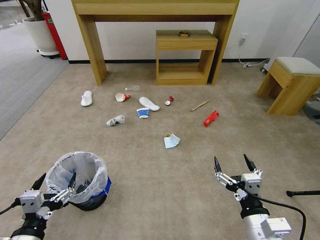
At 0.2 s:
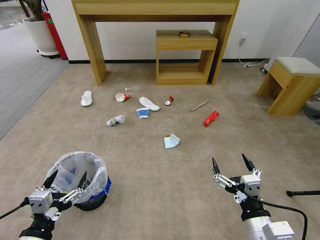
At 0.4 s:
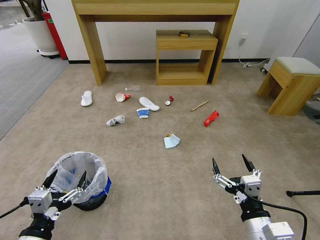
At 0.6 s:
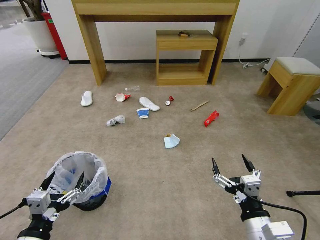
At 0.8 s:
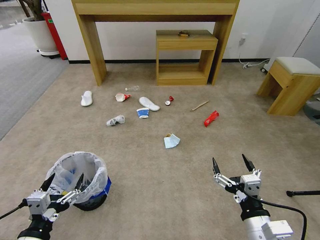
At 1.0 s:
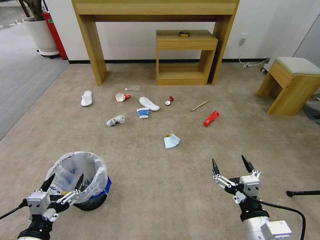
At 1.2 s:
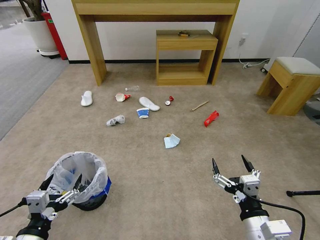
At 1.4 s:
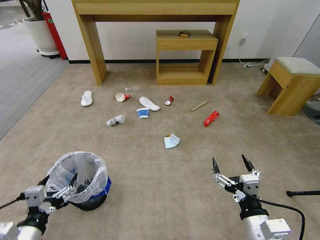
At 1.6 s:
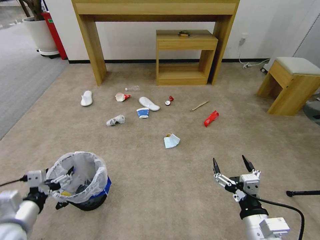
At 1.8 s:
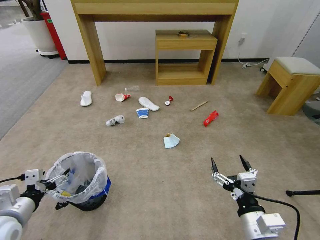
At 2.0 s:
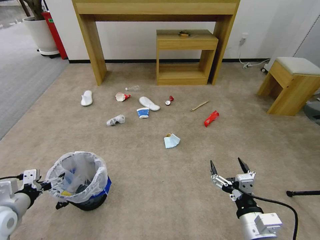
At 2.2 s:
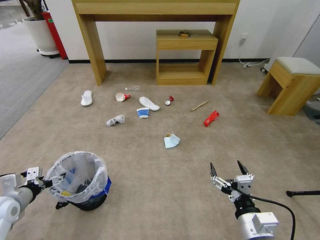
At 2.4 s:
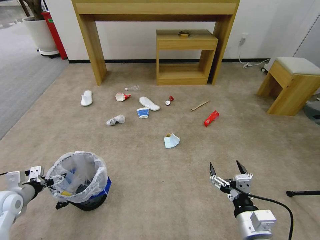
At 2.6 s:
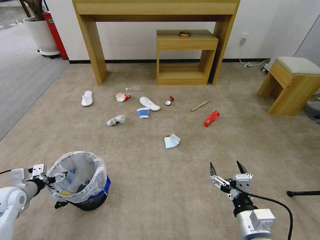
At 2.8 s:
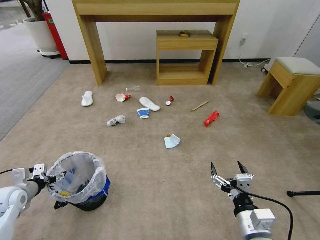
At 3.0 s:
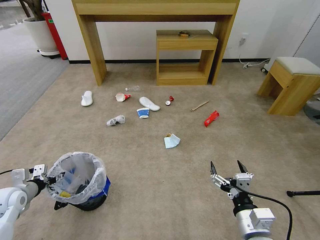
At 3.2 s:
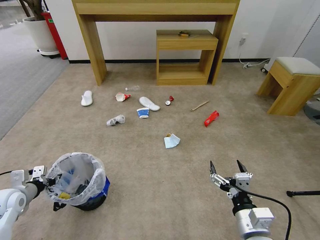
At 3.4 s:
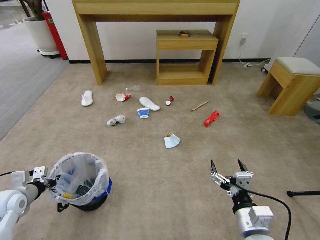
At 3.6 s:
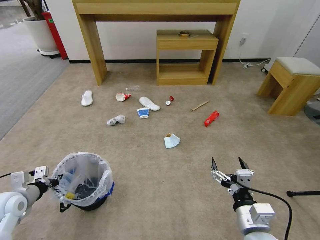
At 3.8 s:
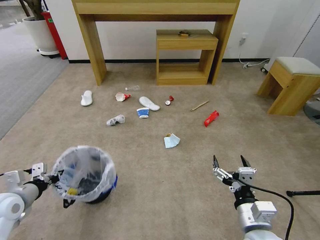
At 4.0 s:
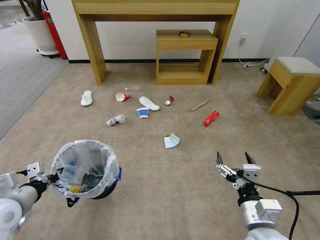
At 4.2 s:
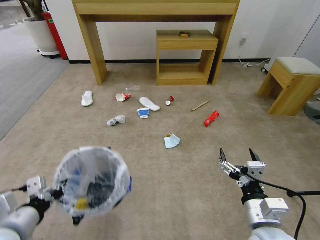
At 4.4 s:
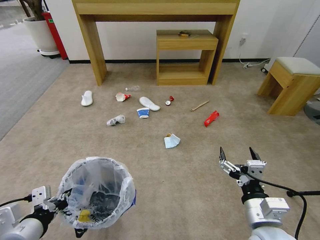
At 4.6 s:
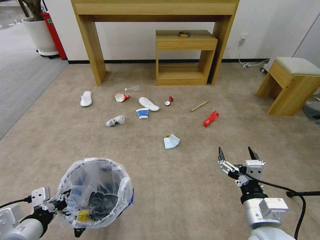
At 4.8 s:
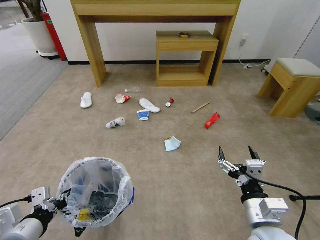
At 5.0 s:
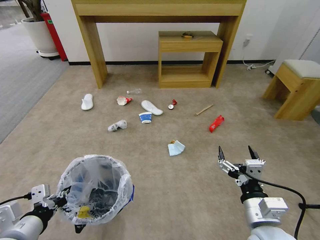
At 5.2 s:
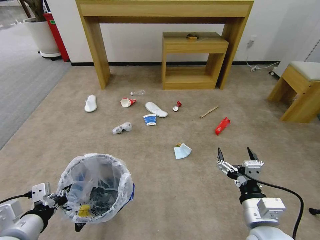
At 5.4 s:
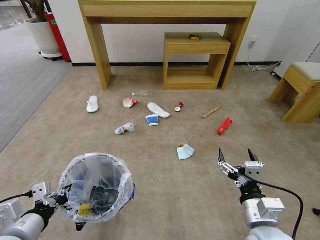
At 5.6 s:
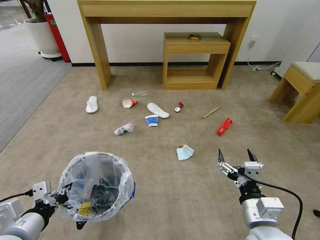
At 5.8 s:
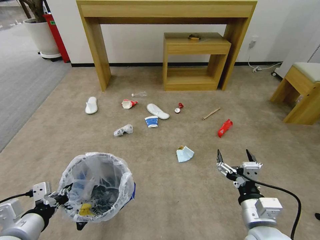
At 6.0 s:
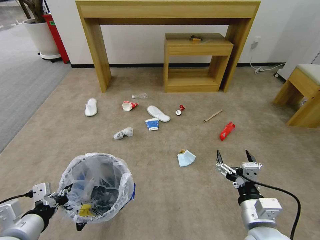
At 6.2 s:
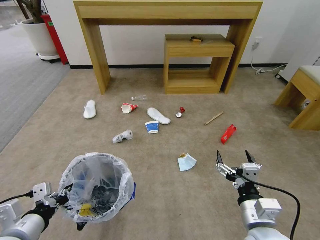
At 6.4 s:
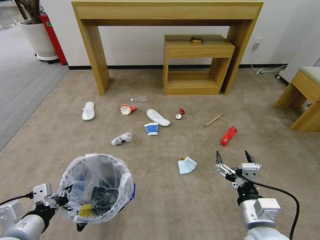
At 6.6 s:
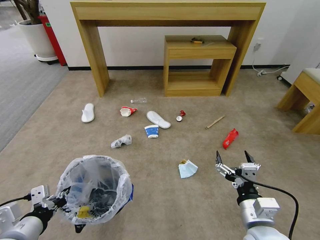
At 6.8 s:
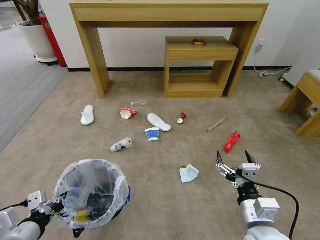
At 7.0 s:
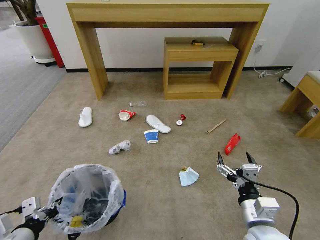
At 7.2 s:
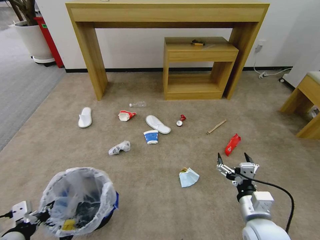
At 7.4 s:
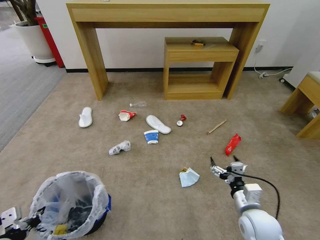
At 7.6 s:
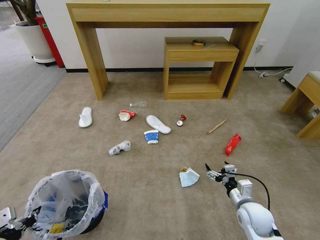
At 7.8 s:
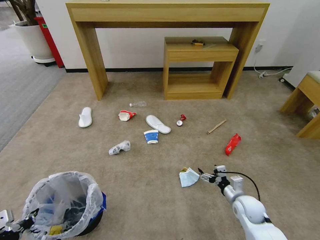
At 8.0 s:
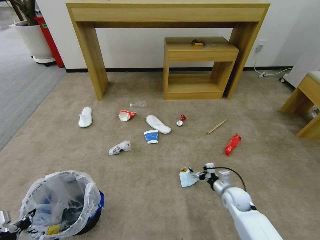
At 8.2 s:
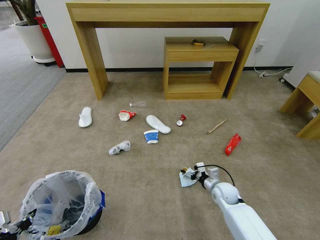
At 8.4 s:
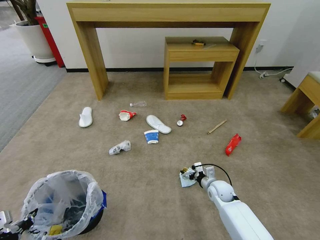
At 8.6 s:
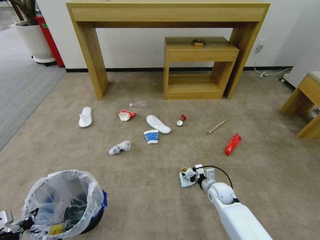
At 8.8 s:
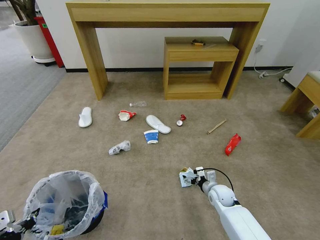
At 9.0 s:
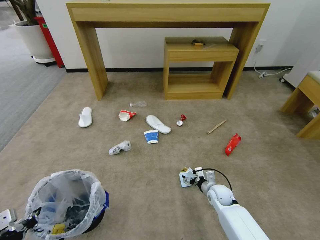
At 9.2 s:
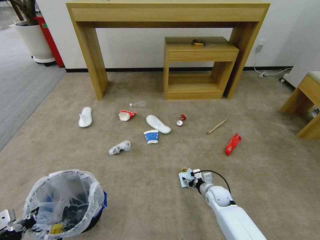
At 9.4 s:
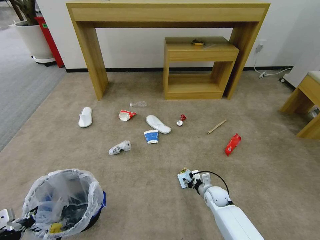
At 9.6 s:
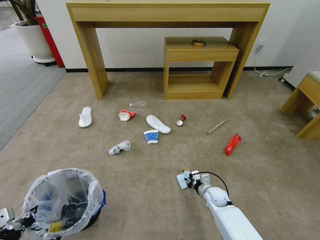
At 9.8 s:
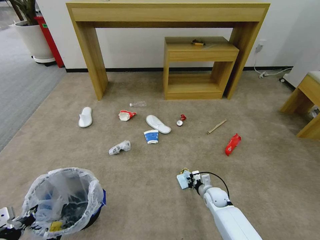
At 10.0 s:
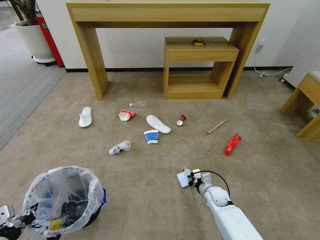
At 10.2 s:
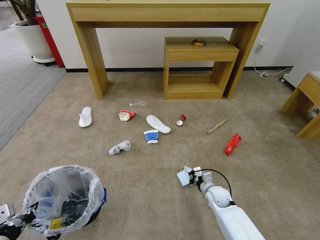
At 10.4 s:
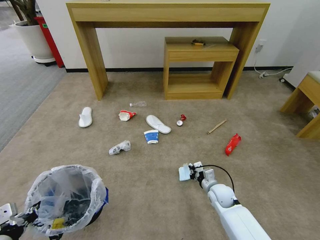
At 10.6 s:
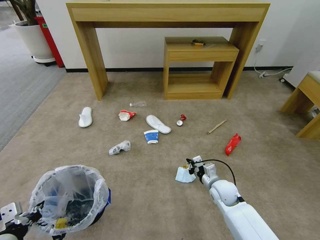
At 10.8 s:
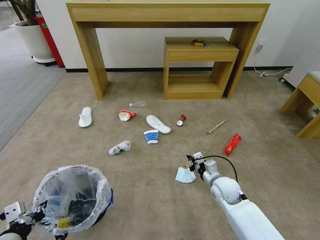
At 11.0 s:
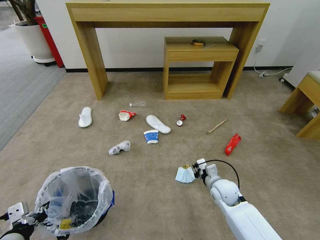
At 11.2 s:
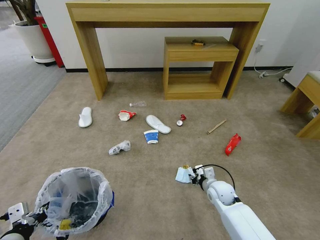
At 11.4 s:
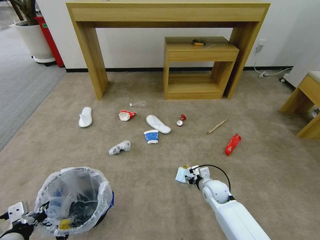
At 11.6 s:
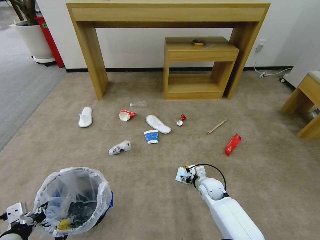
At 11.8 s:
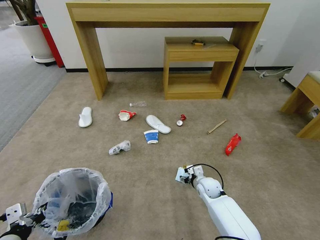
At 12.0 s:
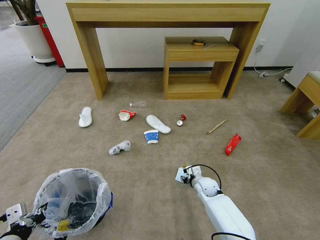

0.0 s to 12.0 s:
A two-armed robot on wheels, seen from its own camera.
Task of the whole recording: Pick up the trash bin and place the garbage on the floor into it.
1.6 to 3.0 s: The left gripper goes some 20 cm forward, to the left and downward, and closes.
3.0 to 4.4 s: The left gripper is displaced backward, to the right and upward by about 25 cm, and closes up.
6.0 to 7.6 s: The left gripper heads to the left, covering approximately 10 cm, while the right gripper goes about 15 cm downward, forward and to the right.
7.6 to 9.0 s: The right gripper is displaced forward and downward by approximately 15 cm.
9.0 to 10.4 s: The right gripper closes up.
10.4 to 12.0 s: The right gripper ends up about 5 cm from where it was, and opens.

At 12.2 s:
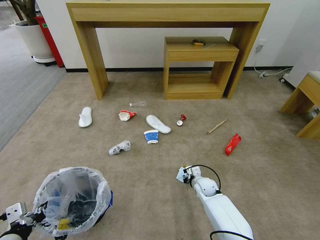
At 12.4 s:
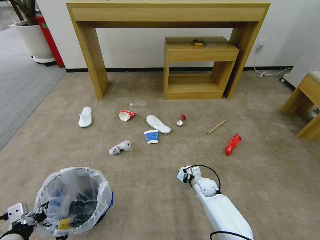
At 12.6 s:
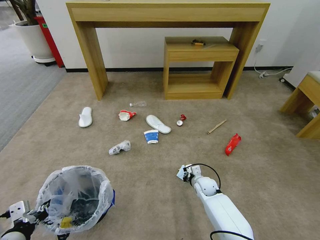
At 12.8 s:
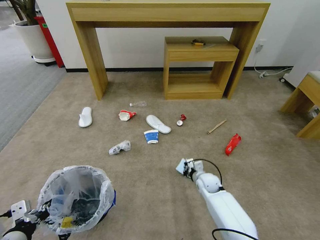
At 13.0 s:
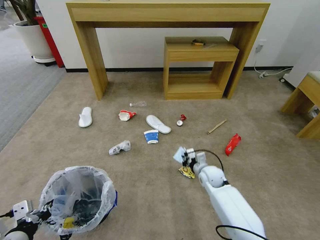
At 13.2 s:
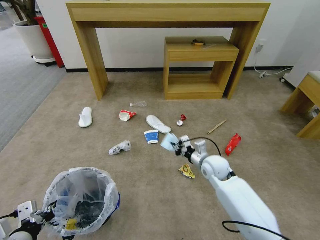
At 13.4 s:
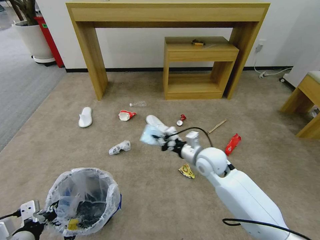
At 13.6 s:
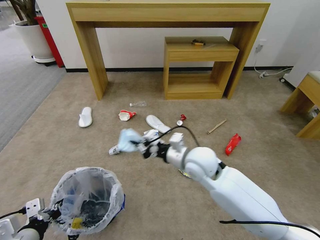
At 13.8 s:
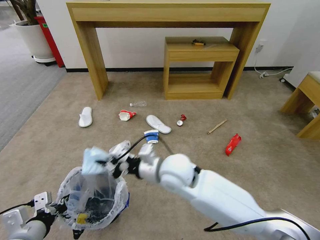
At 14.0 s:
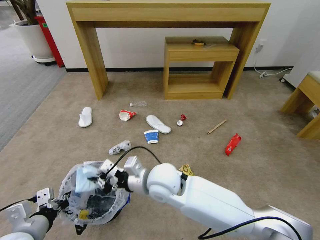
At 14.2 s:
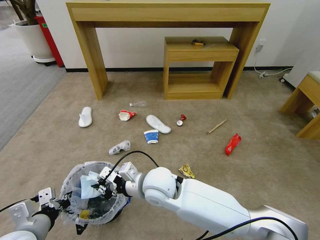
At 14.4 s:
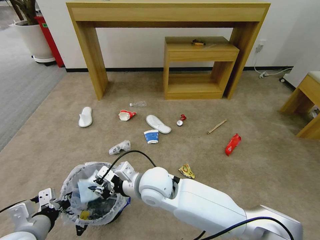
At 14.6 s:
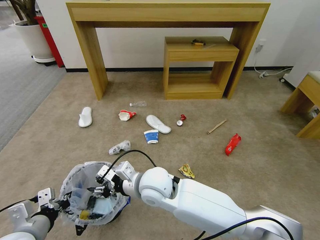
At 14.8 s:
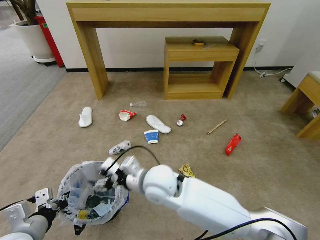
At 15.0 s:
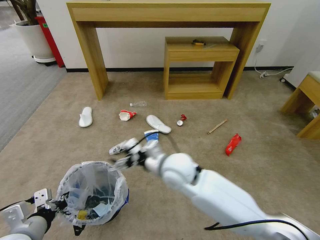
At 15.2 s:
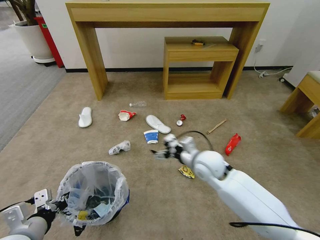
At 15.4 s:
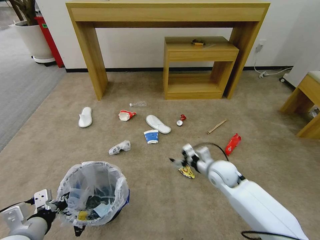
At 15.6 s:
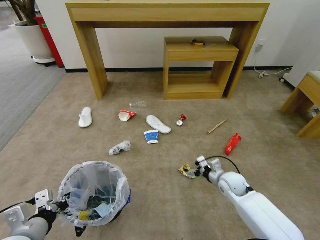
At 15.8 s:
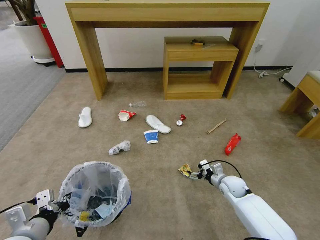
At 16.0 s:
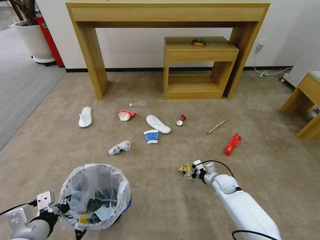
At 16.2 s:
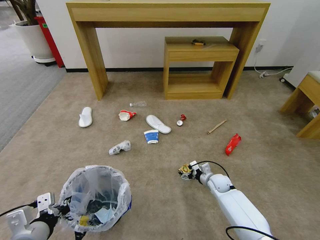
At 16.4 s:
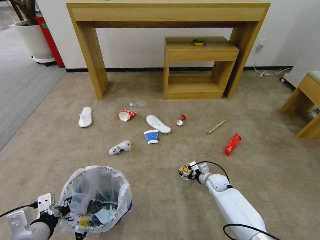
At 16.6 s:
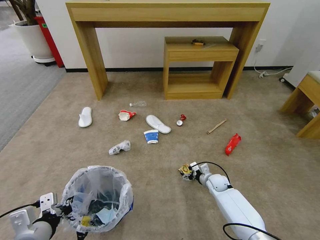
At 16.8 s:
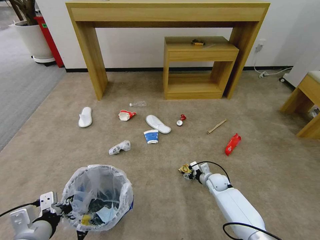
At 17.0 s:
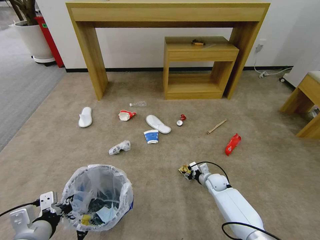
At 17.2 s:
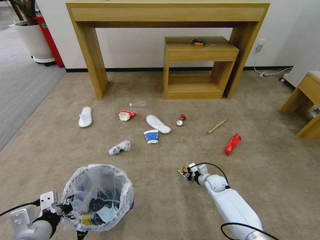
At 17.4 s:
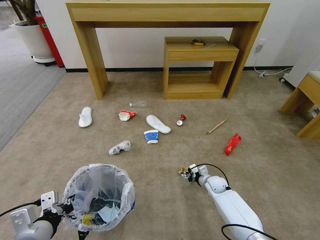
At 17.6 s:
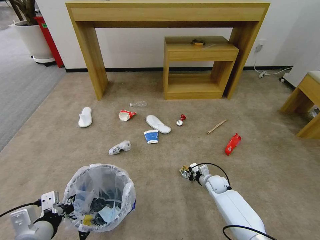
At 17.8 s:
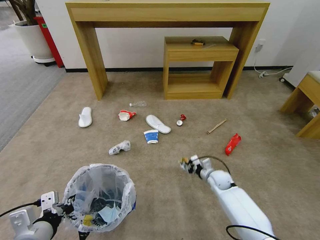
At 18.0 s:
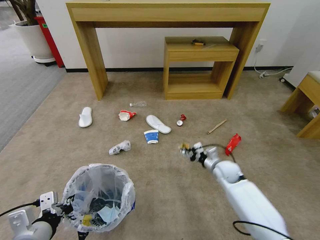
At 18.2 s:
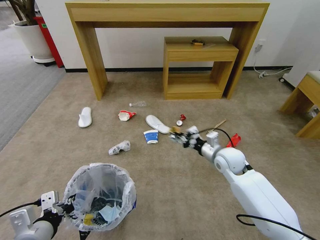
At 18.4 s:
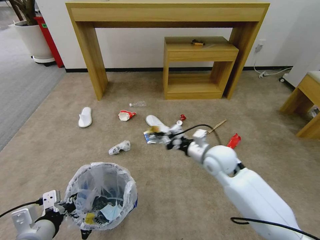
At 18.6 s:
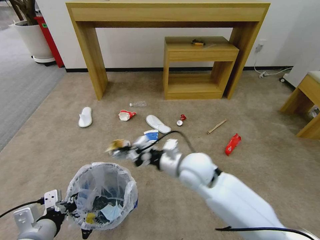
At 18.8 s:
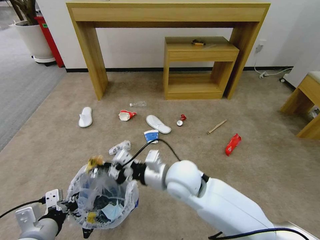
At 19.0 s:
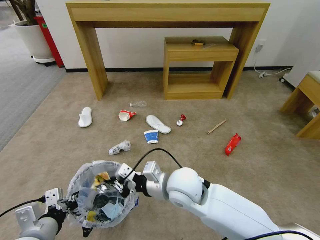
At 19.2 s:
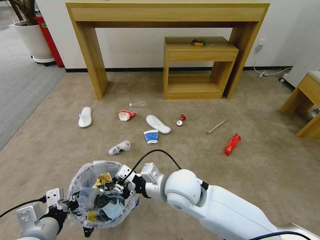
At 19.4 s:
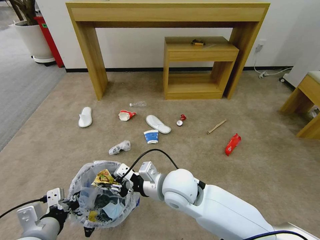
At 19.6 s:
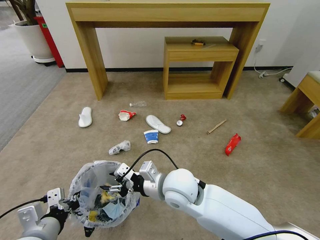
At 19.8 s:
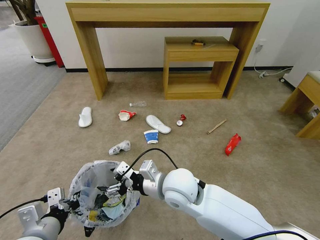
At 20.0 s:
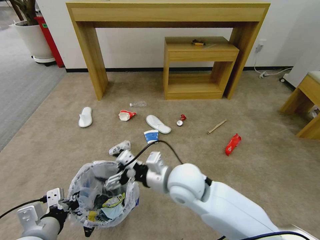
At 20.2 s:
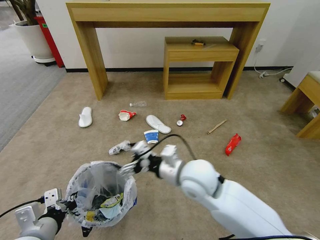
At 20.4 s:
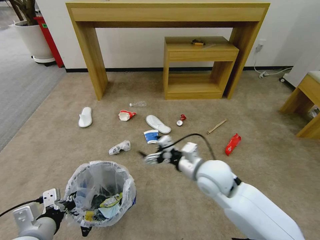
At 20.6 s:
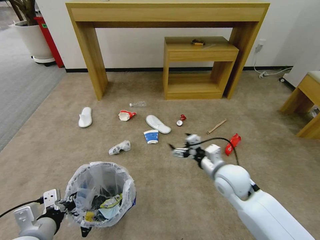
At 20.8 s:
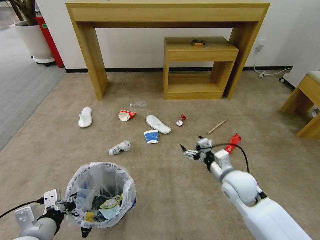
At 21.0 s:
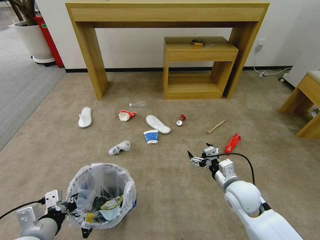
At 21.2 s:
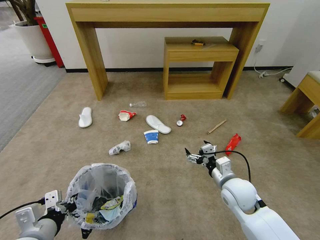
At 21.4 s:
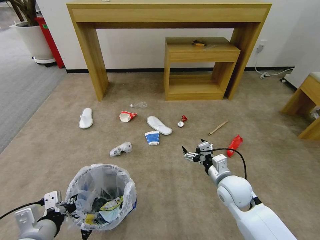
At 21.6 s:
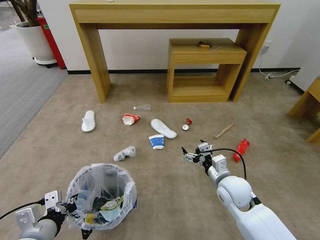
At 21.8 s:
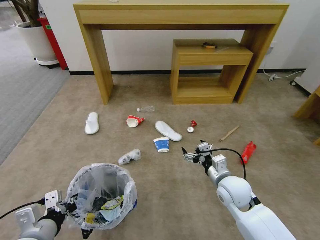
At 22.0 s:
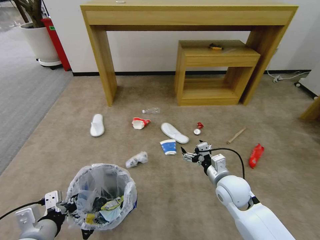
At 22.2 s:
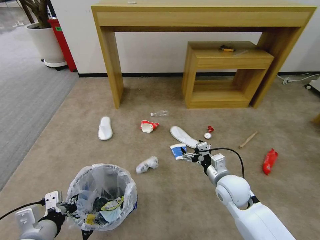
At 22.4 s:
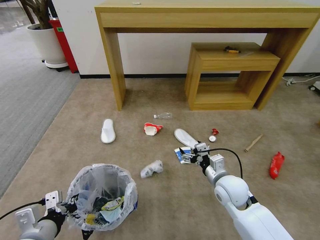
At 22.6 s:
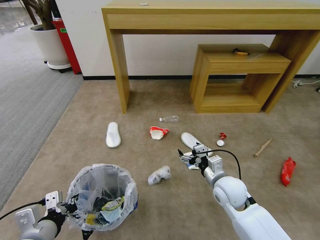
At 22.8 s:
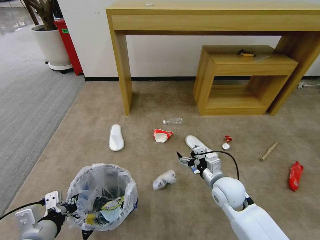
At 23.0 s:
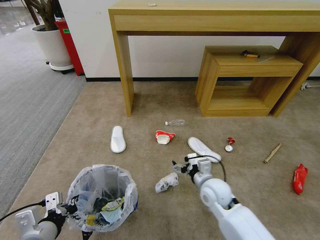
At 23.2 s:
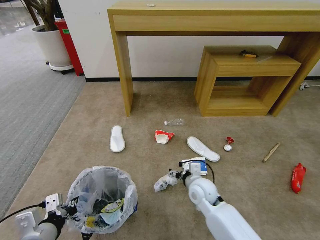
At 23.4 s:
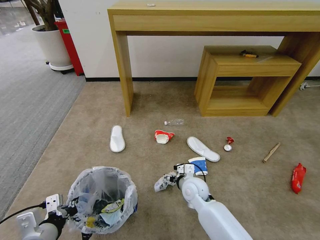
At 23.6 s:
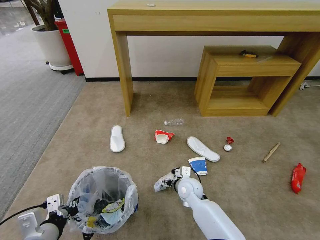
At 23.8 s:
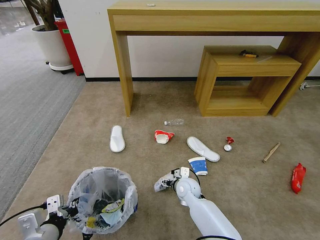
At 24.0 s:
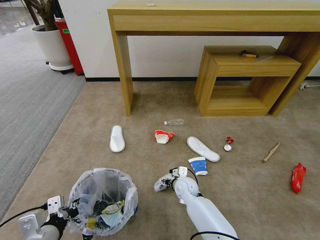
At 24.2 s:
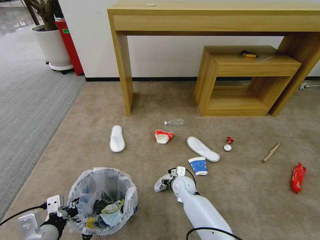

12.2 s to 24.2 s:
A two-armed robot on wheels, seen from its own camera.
Task of the whole recording: Pick up the trash bin and place the garbage on the floor into it.
12.2 to 13.8 s: The right gripper goes about 35 cm upward and to the left.
13.8 to 15.2 s: The right gripper moves to the right, approximately 10 cm, and opens its fingers.
15.2 to 16.6 s: The right gripper goes roughly 30 cm downward and to the right.
16.6 to 18.2 s: The right gripper shifts about 20 cm upward, and closes.
18.2 to 19.8 s: The right gripper moves to the left and backward, about 25 cm, and opens.
19.8 to 21.2 s: The right gripper heads to the right and downward, covering about 20 cm.
22.6 to 24.2 s: The right gripper heads downward, to the left and forward, covering some 20 cm.
